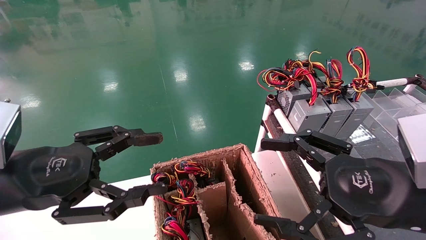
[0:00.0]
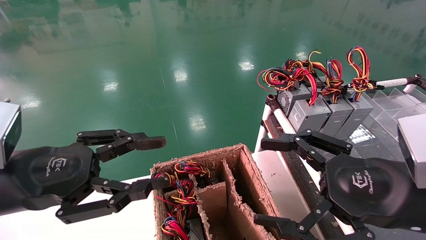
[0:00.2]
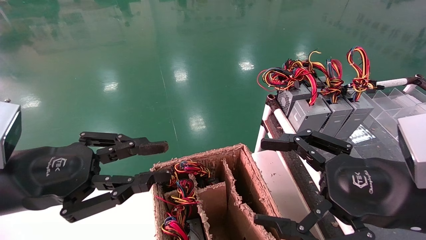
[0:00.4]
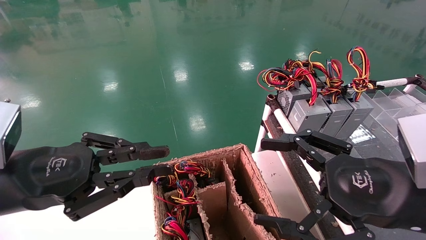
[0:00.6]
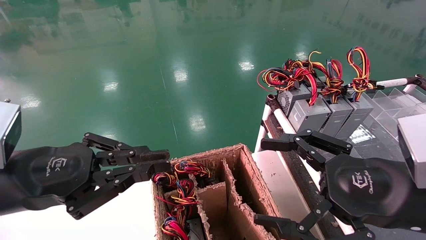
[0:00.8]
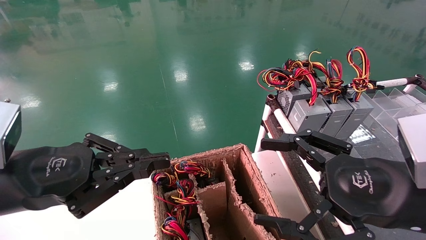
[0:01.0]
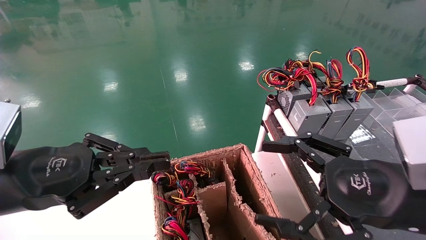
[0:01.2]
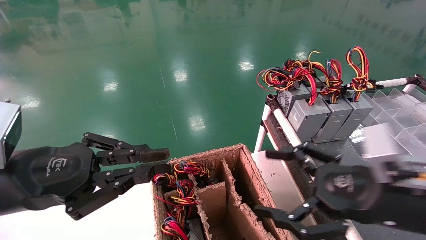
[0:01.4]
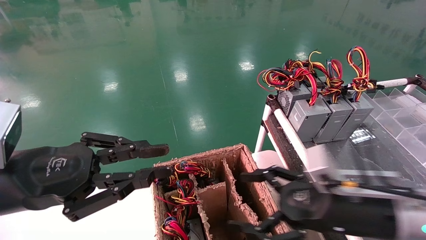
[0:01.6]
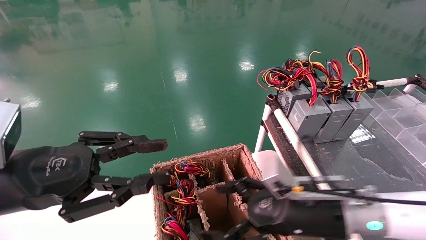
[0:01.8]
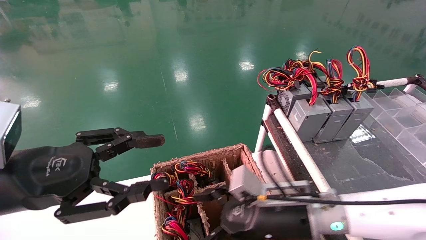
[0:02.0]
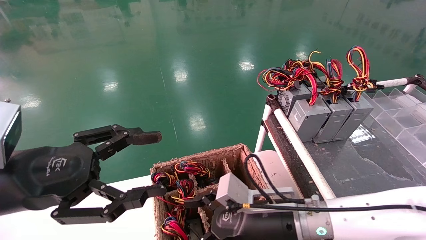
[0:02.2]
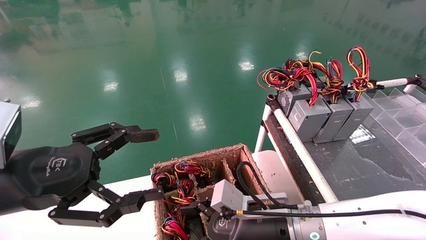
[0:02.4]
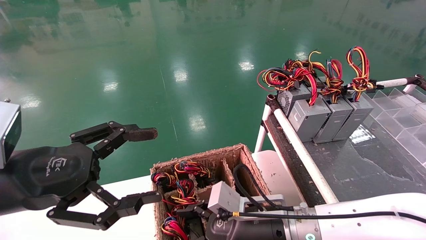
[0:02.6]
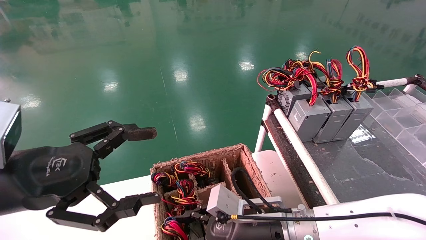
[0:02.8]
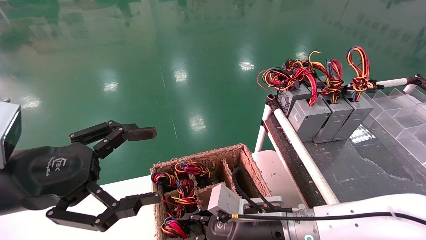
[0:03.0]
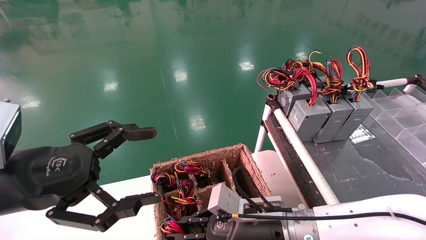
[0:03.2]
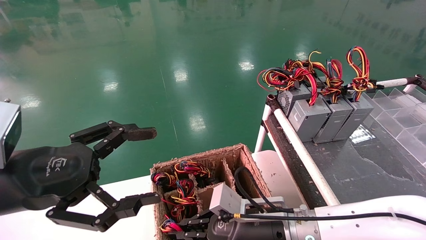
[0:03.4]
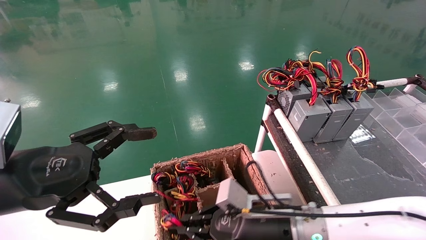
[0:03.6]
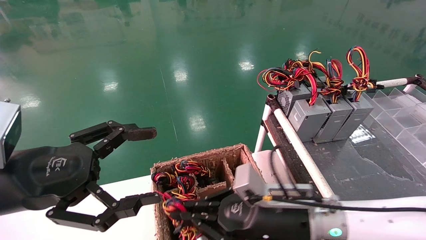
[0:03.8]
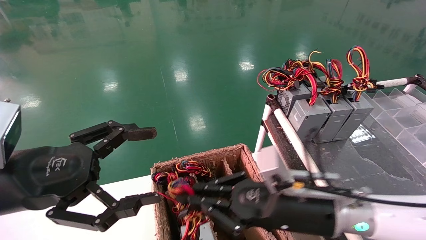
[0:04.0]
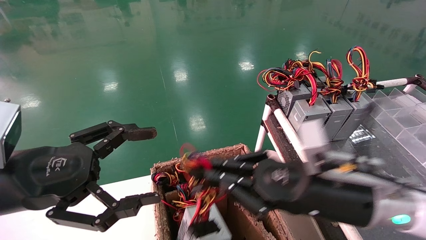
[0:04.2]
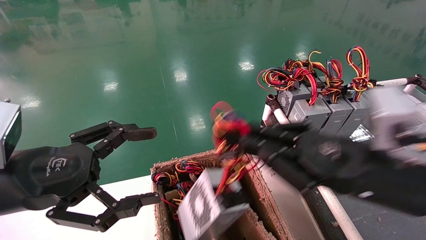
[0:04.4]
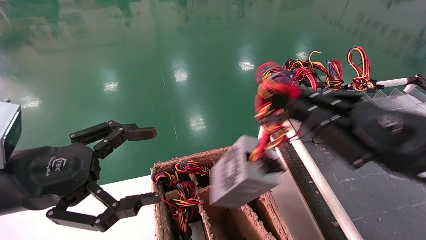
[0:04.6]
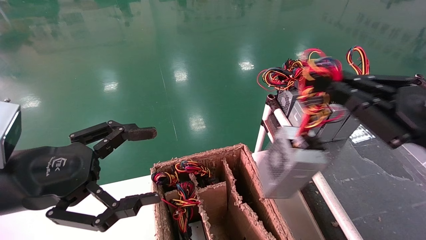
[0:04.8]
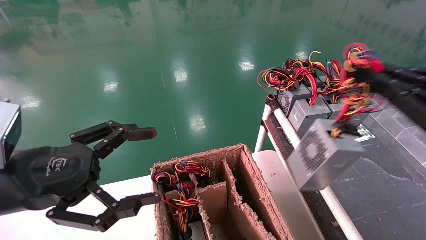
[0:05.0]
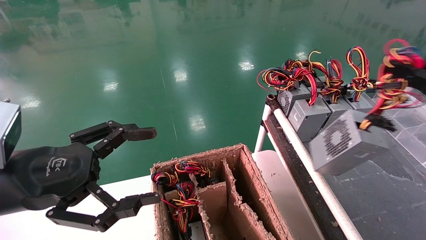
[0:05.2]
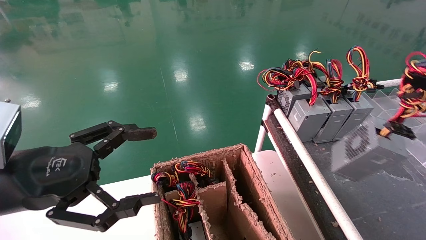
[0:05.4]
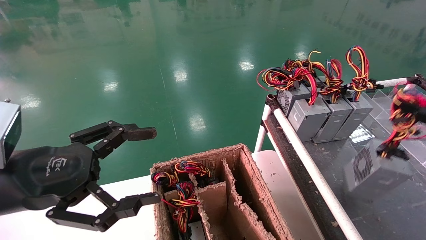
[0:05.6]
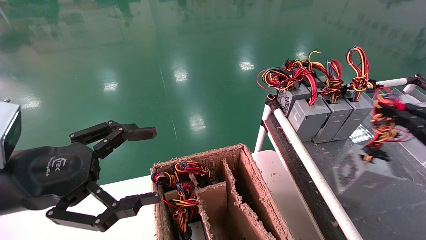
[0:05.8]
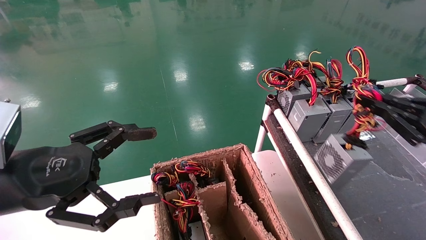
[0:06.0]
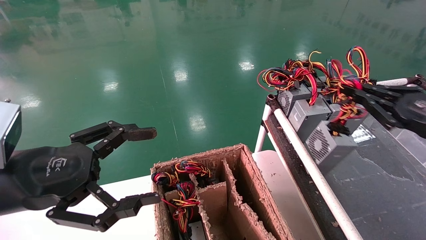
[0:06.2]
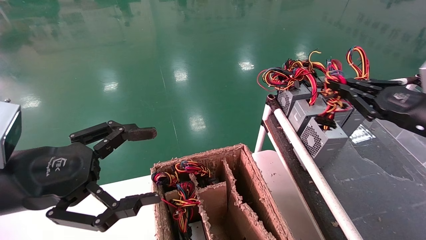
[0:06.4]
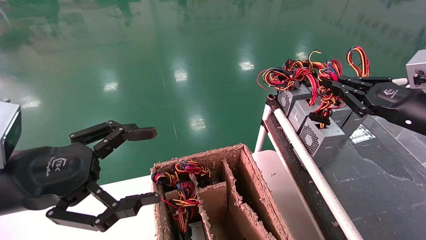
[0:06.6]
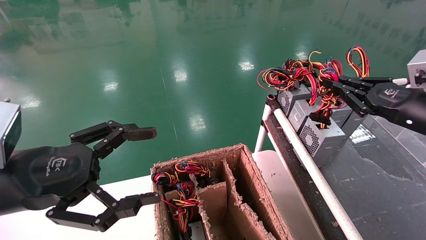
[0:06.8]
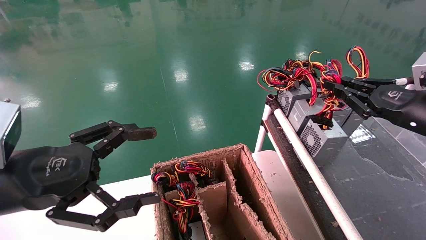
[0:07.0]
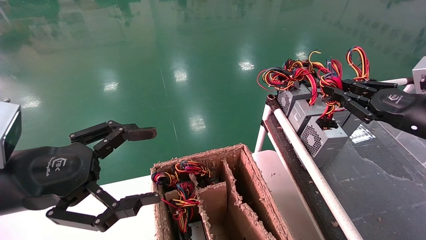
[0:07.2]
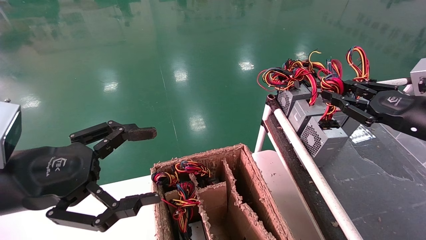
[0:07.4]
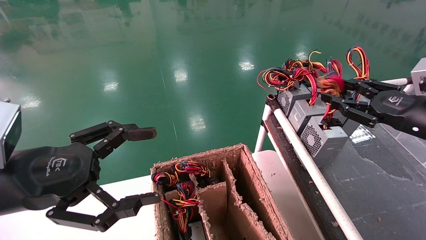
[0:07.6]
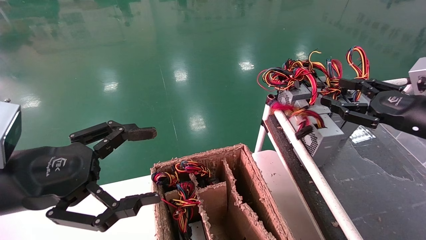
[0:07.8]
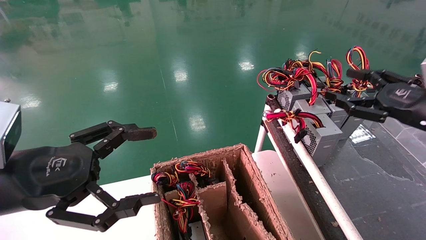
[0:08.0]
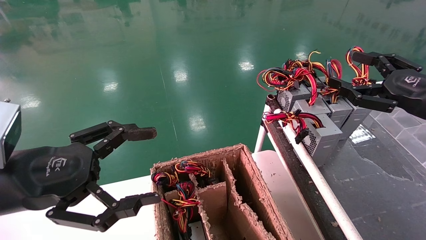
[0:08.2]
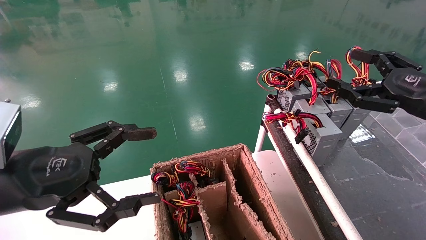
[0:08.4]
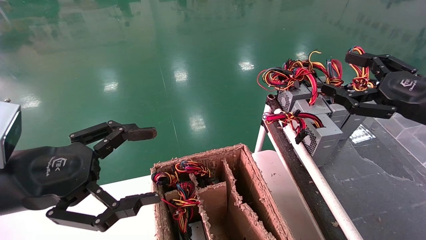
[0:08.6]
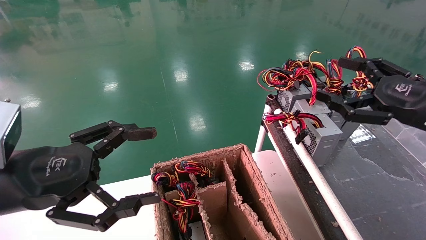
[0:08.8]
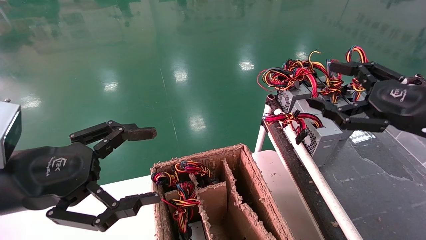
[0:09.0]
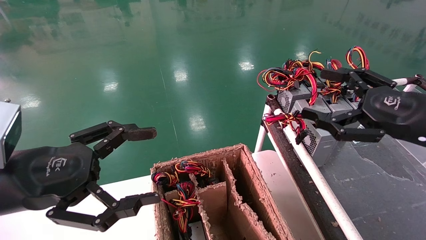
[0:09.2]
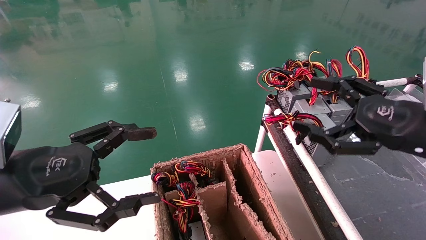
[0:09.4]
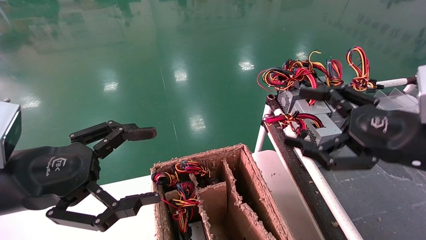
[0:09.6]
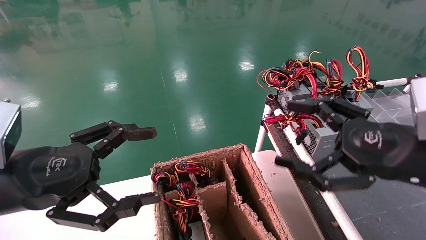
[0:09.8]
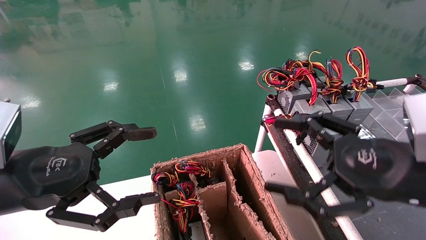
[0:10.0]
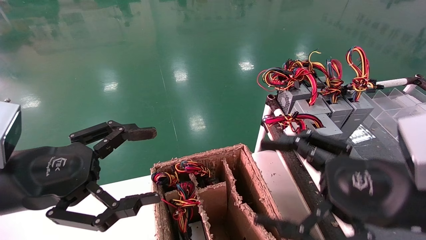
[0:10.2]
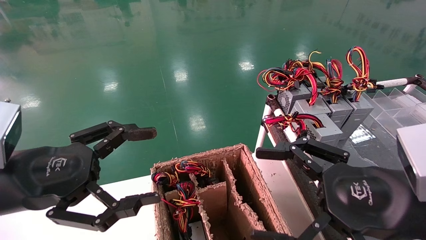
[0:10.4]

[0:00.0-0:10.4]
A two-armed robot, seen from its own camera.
Step, 0:01.2 to 0:04.0: Grab and lift the power supply from the large box.
Step, 0:04.2 to 0:07.0: Place the power supply on the operating table.
0:00.0 to 0:01.4: The right gripper shifts by roughly 5 cm. Meanwhile the left gripper closes.
0:01.4 to 0:03.0: The right gripper heads to the left, downward and forward, covering approximately 20 cm, and closes; the left gripper opens.
0:03.0 to 0:04.4: The right gripper heads upward, to the right and backward, covering about 20 cm, and closes up.
0:04.4 to 0:06.0: The right gripper travels to the right by approximately 20 cm.
0:06.0 to 0:07.4: The right gripper is displaced forward by roughly 5 cm.
0:07.4 to 0:09.0: The right gripper ends up approximately 5 cm from where it was, and opens up.
0:09.0 to 0:10.4: The right gripper goes approximately 15 cm to the left and backward.
